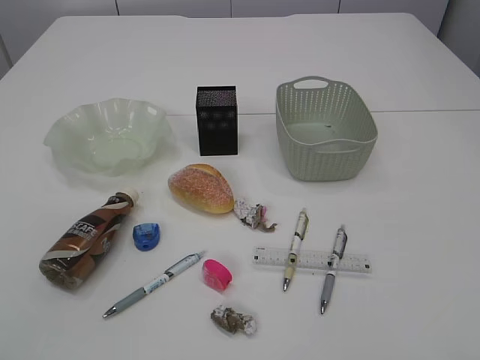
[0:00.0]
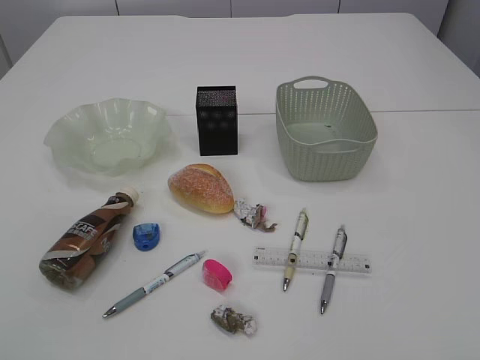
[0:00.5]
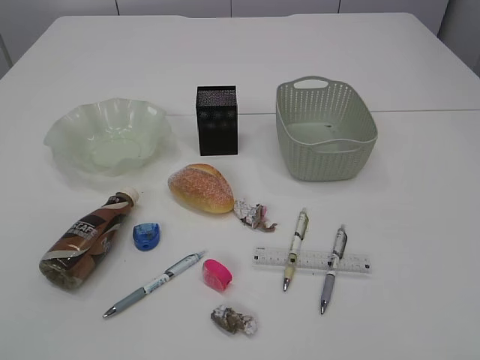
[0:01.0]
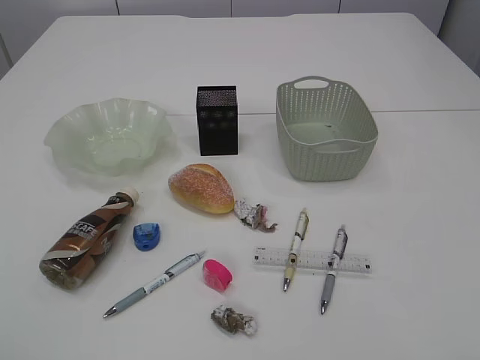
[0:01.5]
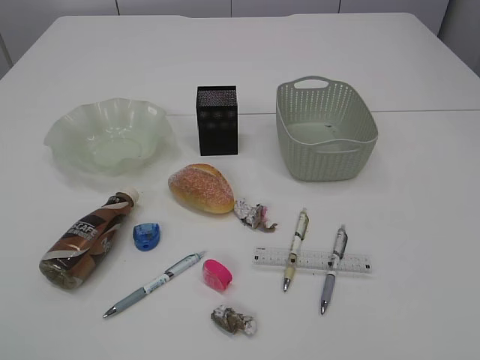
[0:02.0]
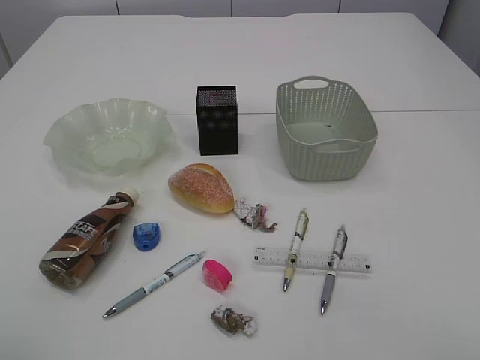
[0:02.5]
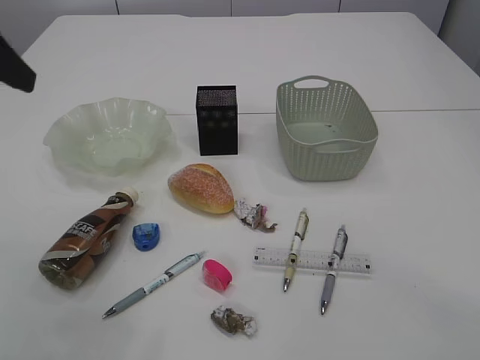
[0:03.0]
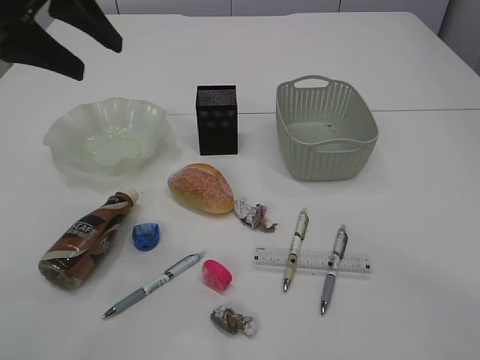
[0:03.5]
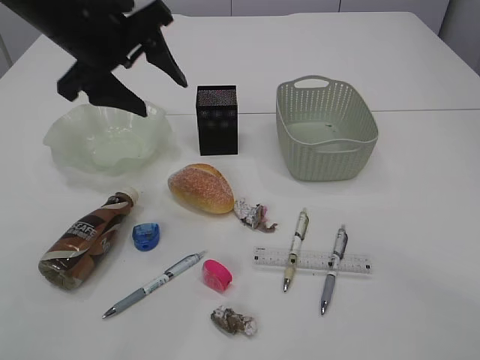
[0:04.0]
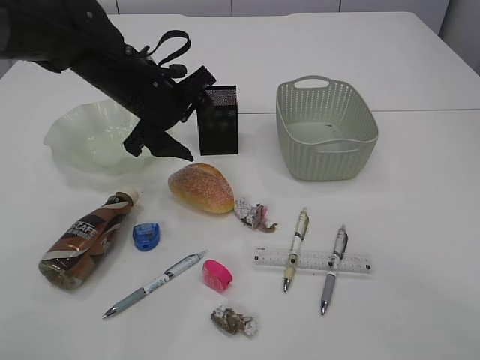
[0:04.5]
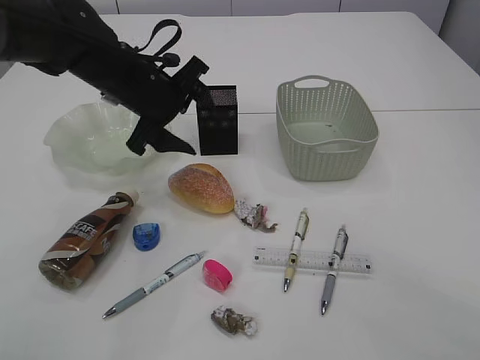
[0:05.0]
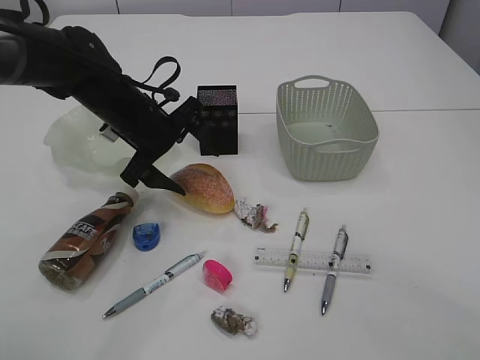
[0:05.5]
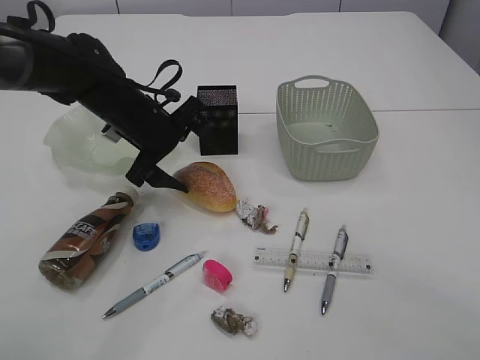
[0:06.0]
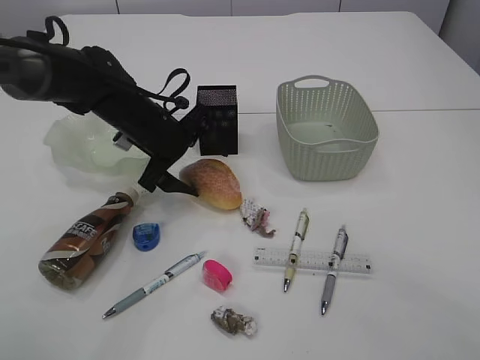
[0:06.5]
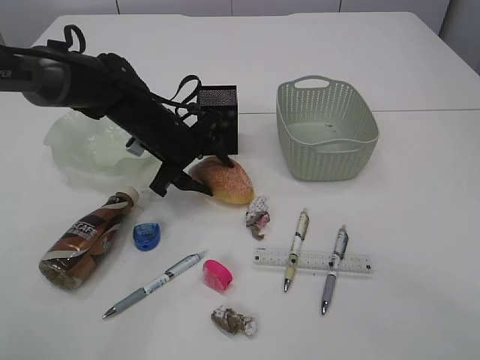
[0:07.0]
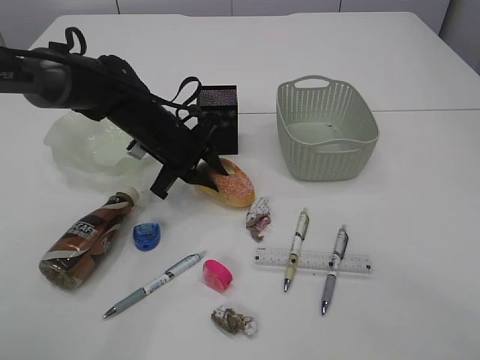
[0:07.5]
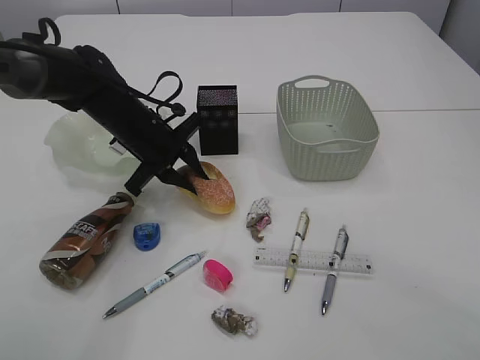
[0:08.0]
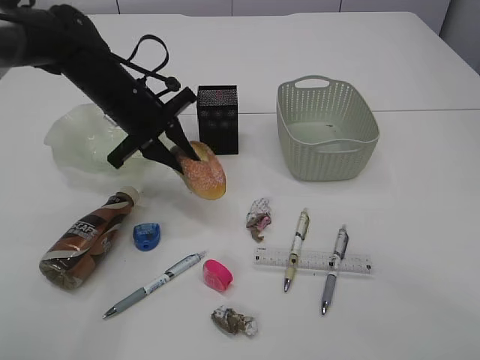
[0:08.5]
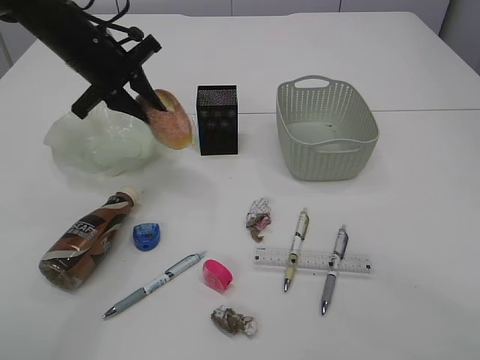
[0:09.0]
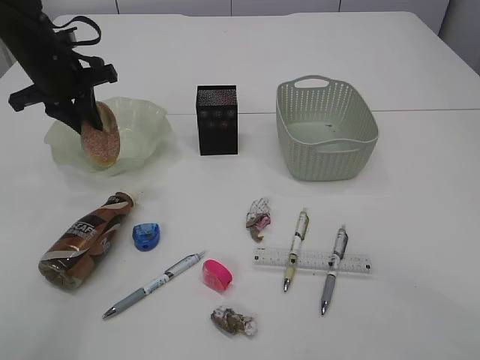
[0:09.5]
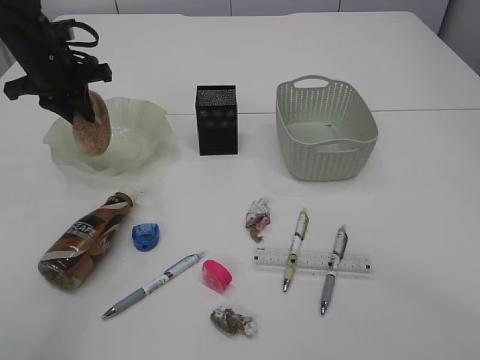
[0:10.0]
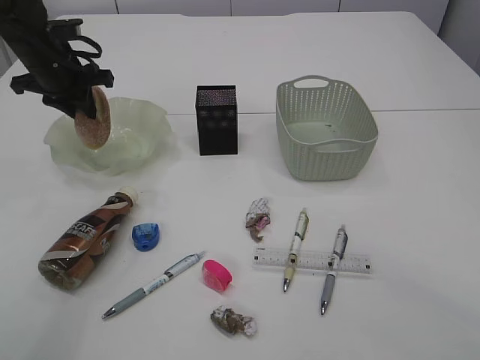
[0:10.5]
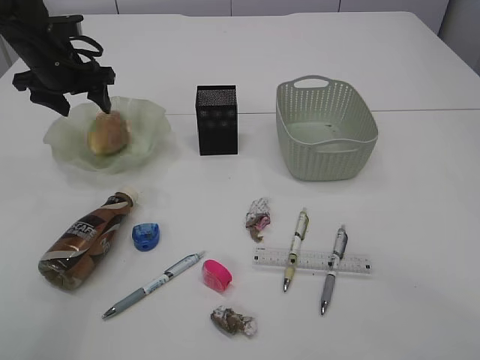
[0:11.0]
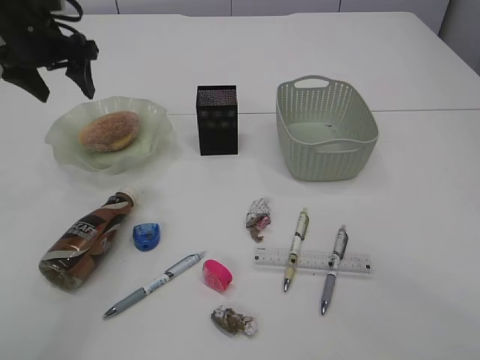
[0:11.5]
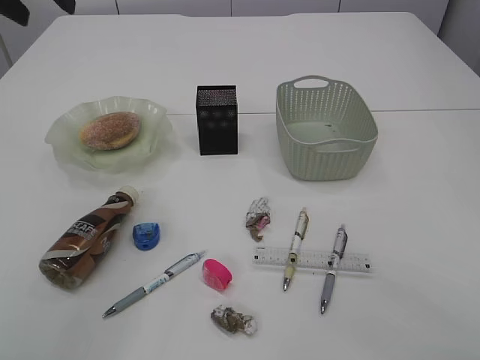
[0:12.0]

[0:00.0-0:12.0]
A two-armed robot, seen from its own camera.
Step, 0:09.0 to 0:11.5: place the bread in the plate.
0:02.0 to 0:04.0: The left gripper travels forward and to the right by some 35 cm; the right gripper shifts some 20 cm forward.
0:04.0 to 0:06.0: The left gripper heads downward, covering approximately 15 cm.
0:06.0 to 0:08.0: The left gripper closes up.
0:08.0 to 0:10.0: The left gripper goes roughly 15 cm to the left, upward and forward.
0:10.0 to 0:12.0: The left gripper moves upward and backward, about 20 cm, and opens.

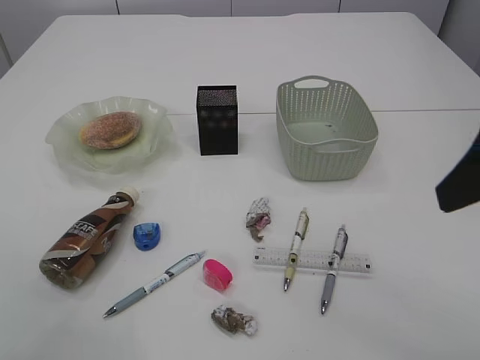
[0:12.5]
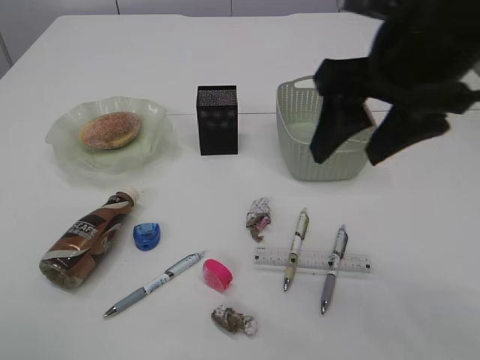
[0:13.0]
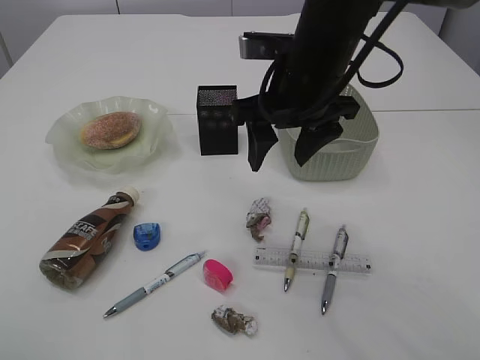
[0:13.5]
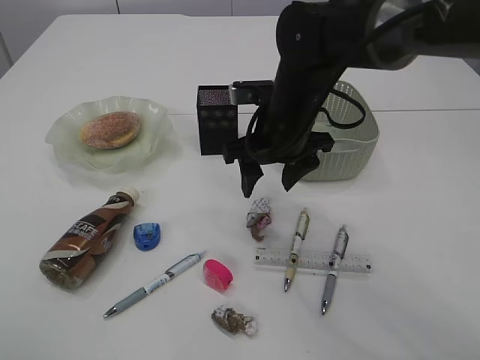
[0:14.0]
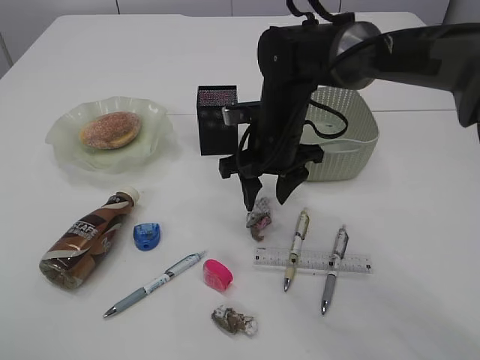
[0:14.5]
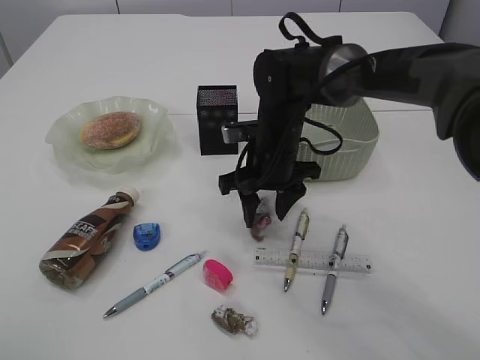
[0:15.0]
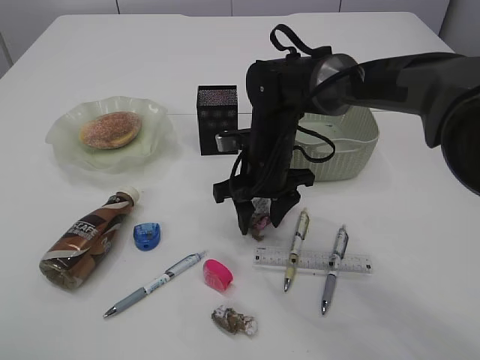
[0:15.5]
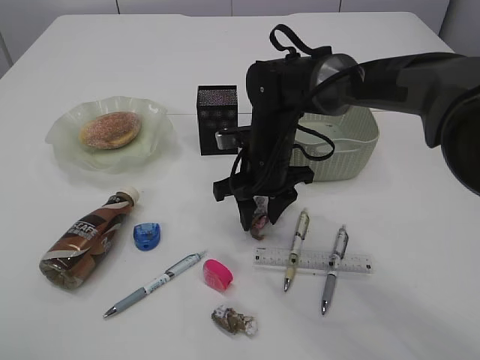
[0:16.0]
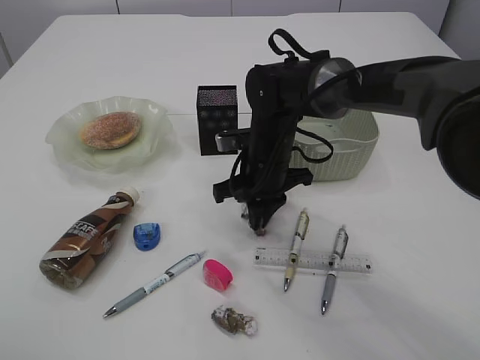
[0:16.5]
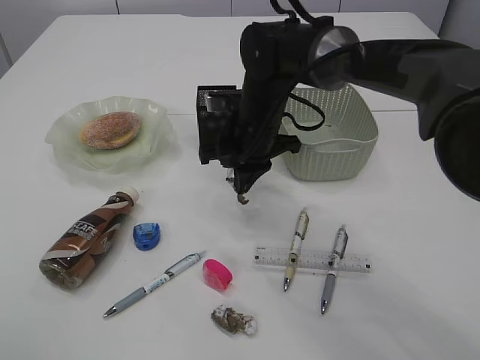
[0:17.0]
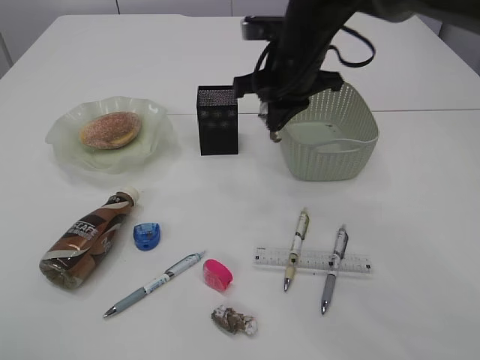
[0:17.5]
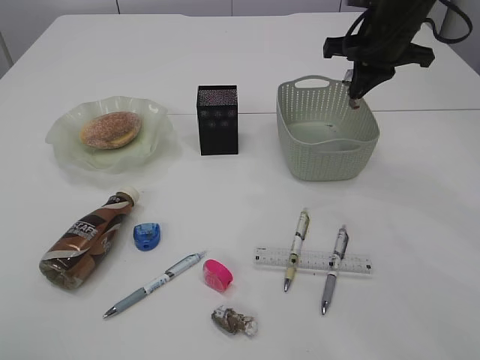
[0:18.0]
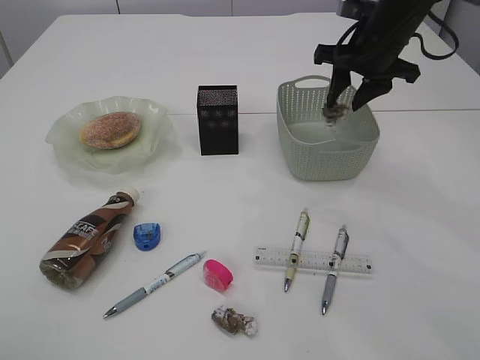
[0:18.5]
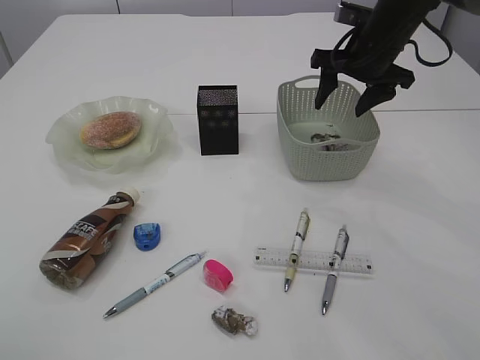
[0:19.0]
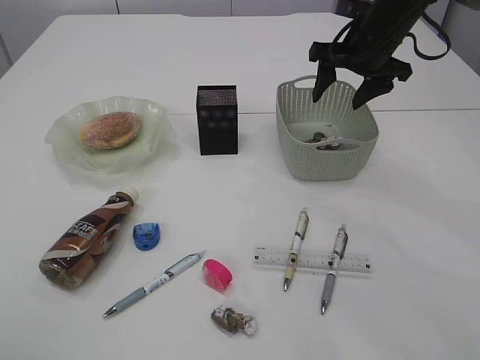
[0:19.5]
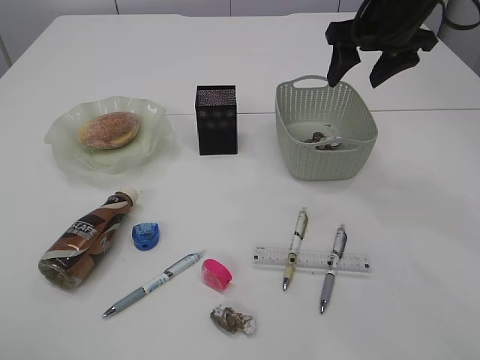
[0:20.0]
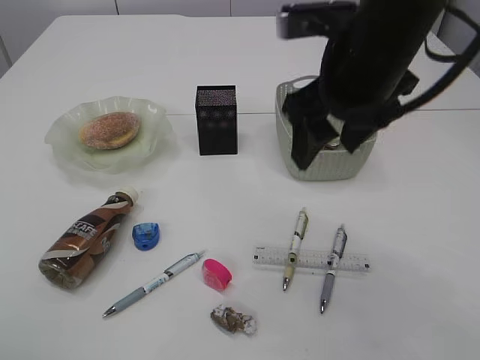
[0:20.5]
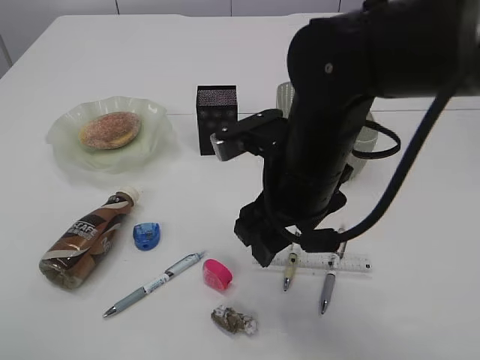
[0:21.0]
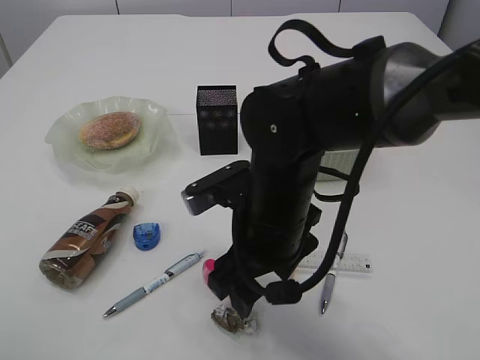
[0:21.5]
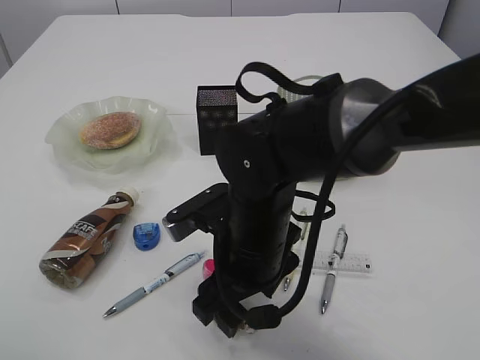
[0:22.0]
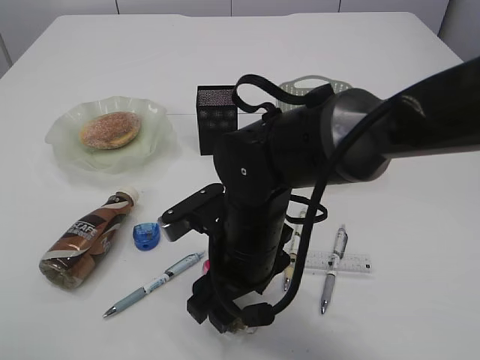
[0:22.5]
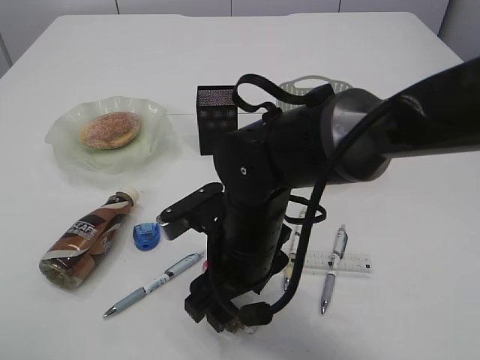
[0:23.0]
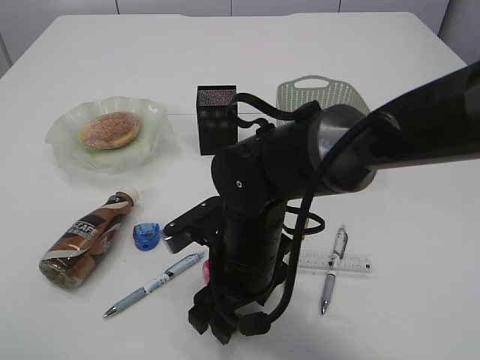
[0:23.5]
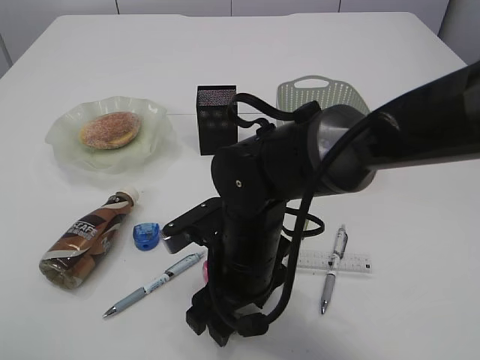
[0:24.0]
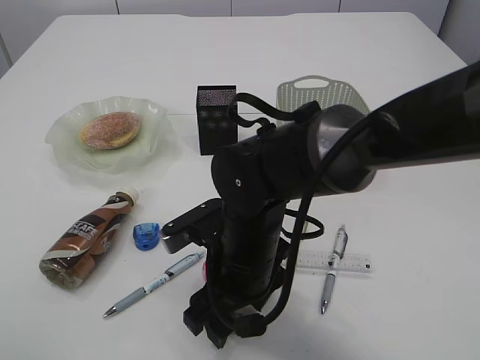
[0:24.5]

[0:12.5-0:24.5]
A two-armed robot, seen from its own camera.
Step, 0:12.5 to 0:17.0: Pick up the waste paper.
Step, 0:17.5 to 0:19.5: Place the waste paper in the basket.
0:12.5 to 0:14.5: The left gripper moves backward, about 10 cm, while the right gripper moves forward, to the left and downward, roughly 35 cm.
0:14.5 to 0:16.5: The right gripper closes.
0:16.5 to 0:18.5: The right gripper moves to the right, upward and forward, some 20 cm, and opens.
0:18.5 to 0:20.5: The right gripper is displaced backward and to the left by about 20 cm, and opens up.
0:20.5 to 0:22.5: The right gripper shifts roughly 20 cm downward and to the left.
0:22.5 to 0:24.5: There are only small adjustments of the grippers.

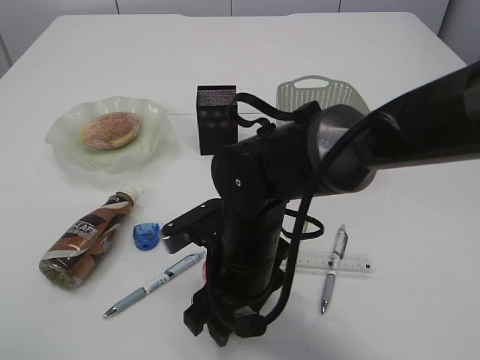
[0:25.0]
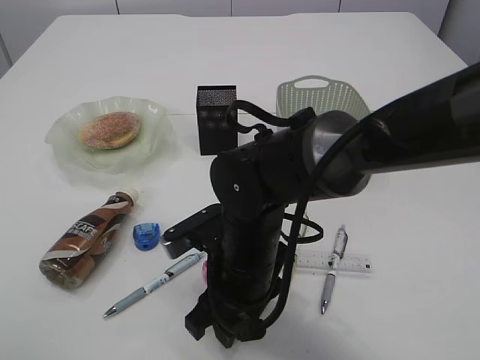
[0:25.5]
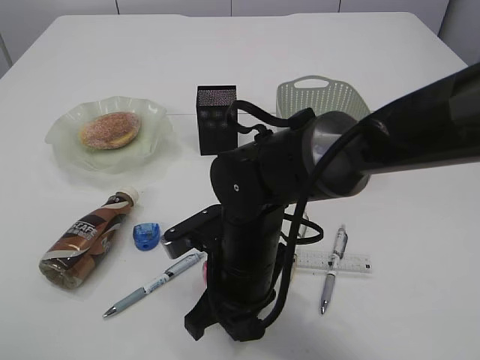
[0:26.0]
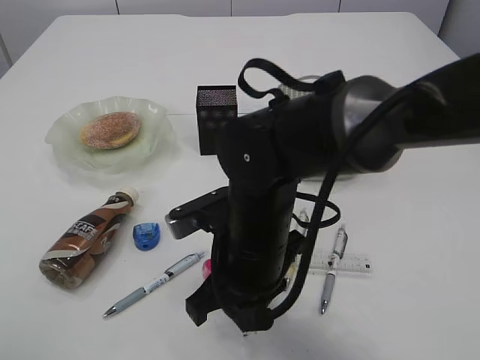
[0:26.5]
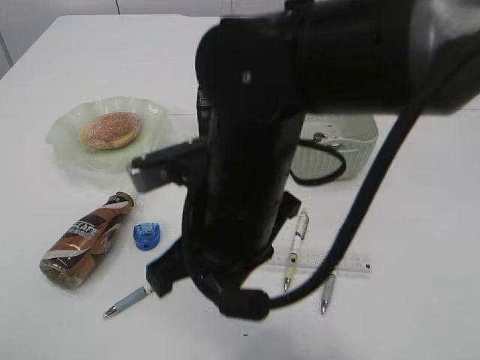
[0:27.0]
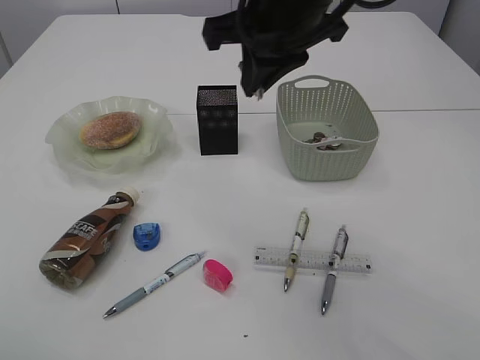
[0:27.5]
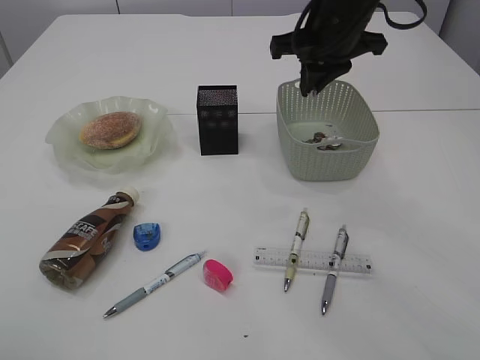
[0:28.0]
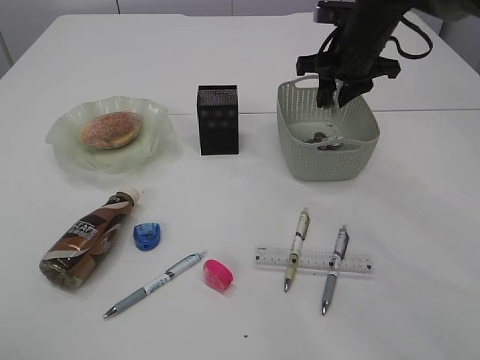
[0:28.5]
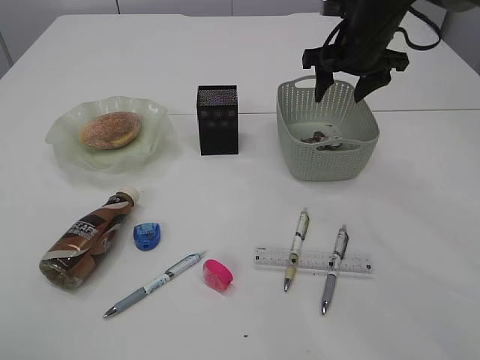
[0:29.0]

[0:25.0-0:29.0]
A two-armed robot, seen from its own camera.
Step, 0:25.0 to 0:27.0: Pick up the waste paper.
0:25.0 to 0:27.0: The right gripper travels upward by roughly 10 cm, and closes up.
0:27.0 to 0:29.0: The right gripper travels forward and to the right by some 30 cm, and opens.
